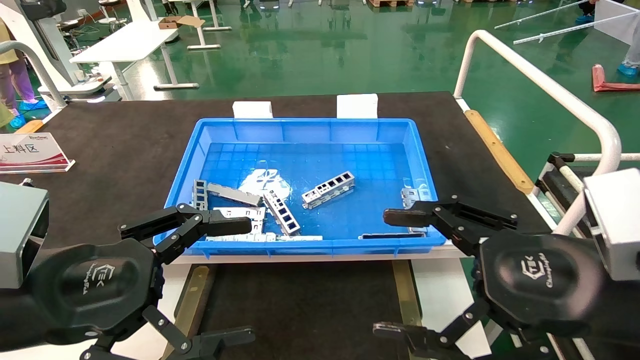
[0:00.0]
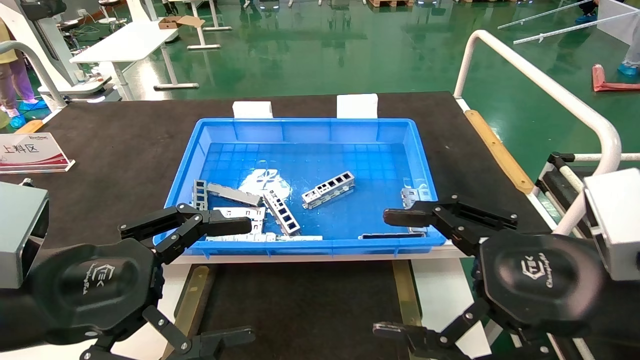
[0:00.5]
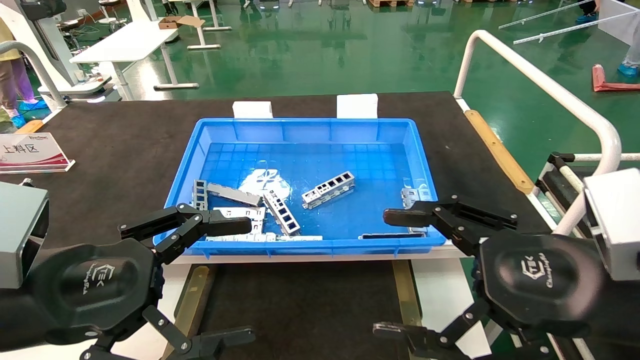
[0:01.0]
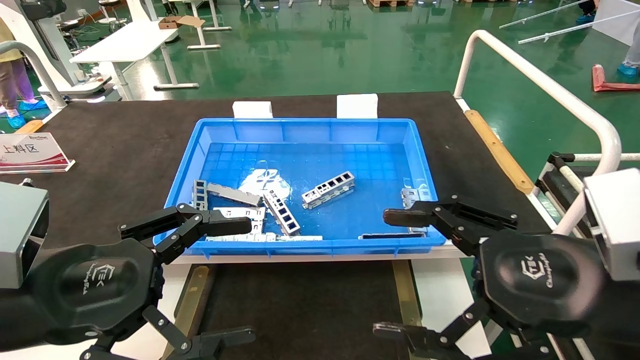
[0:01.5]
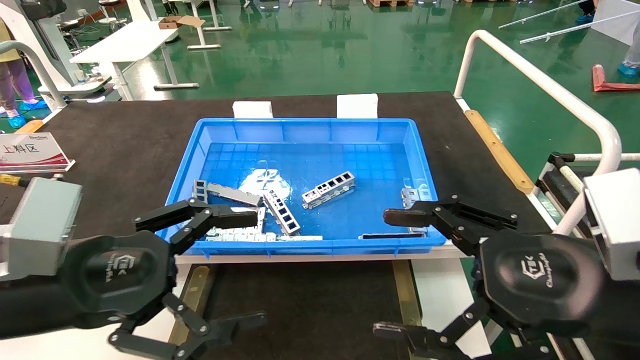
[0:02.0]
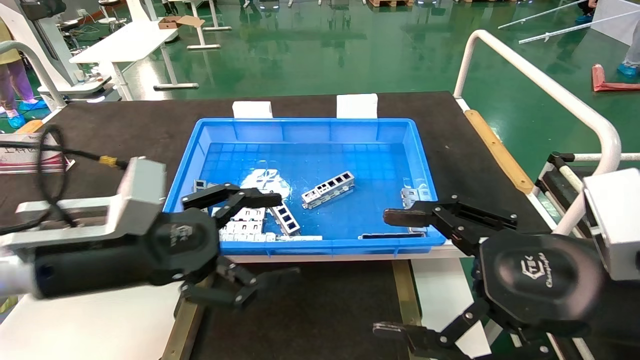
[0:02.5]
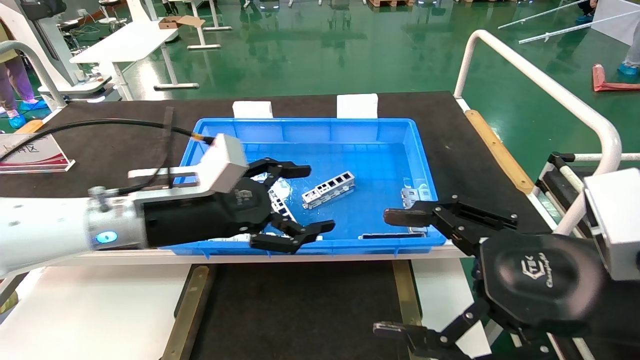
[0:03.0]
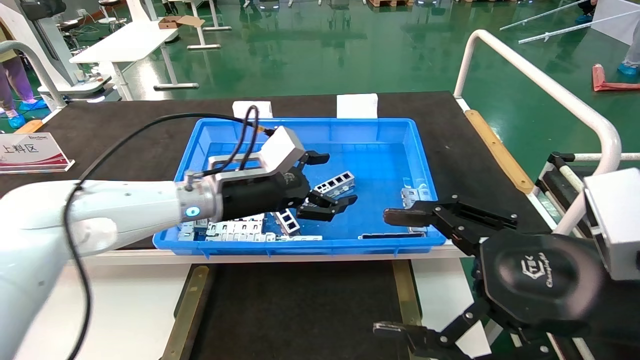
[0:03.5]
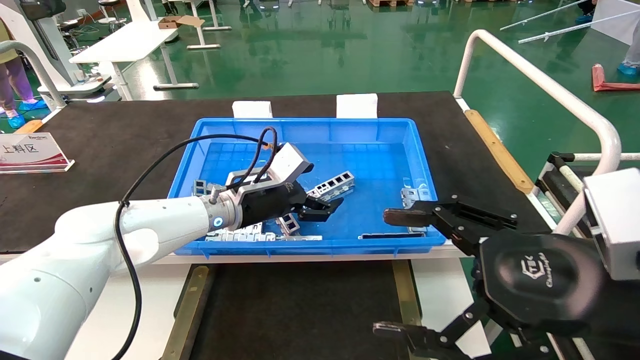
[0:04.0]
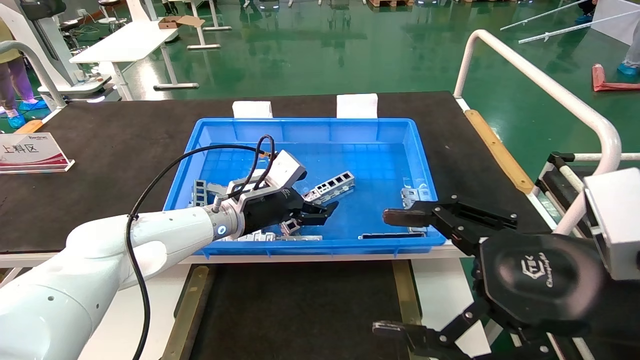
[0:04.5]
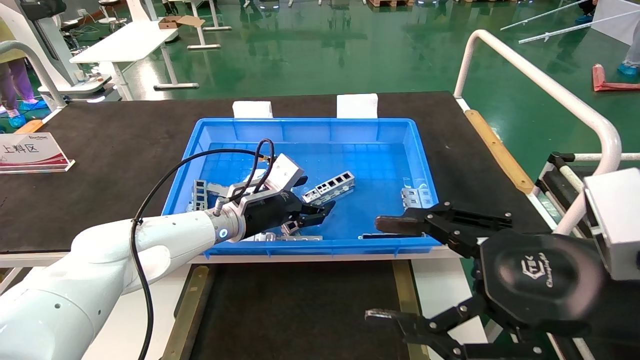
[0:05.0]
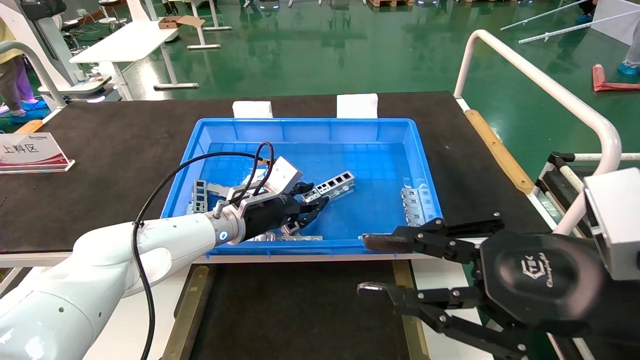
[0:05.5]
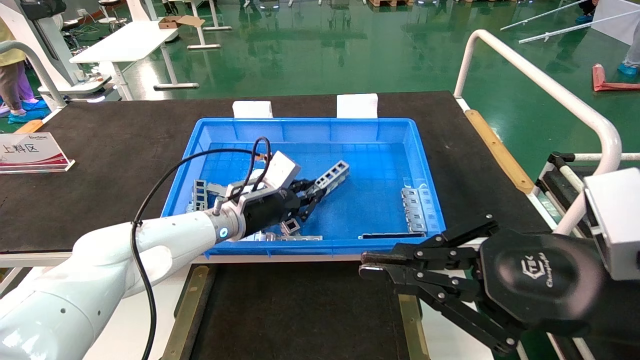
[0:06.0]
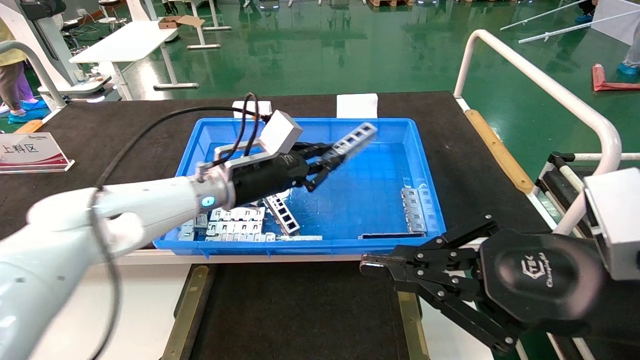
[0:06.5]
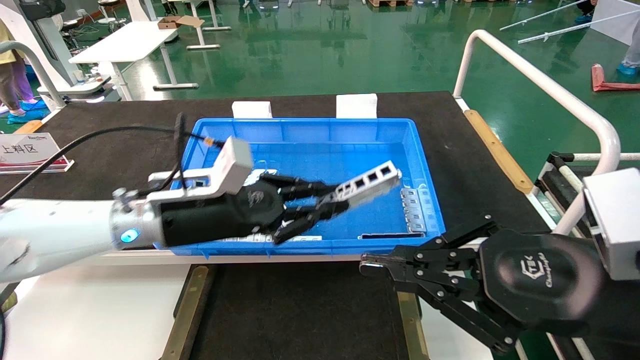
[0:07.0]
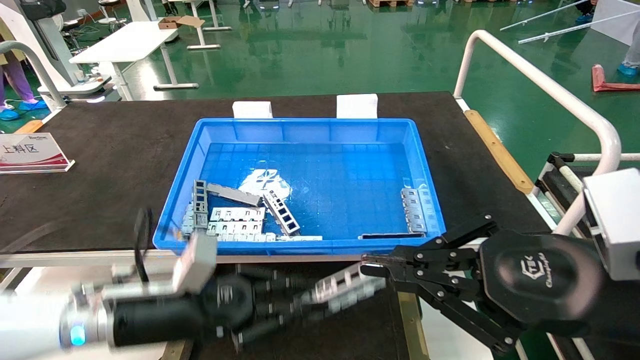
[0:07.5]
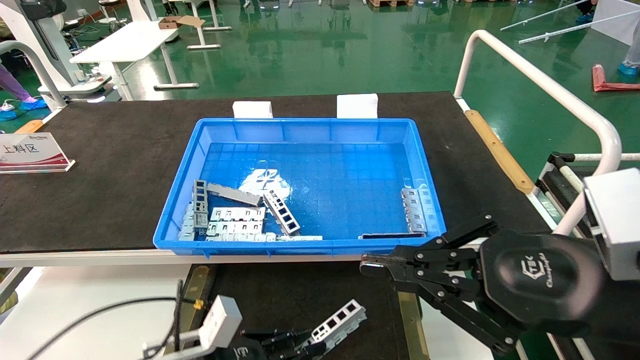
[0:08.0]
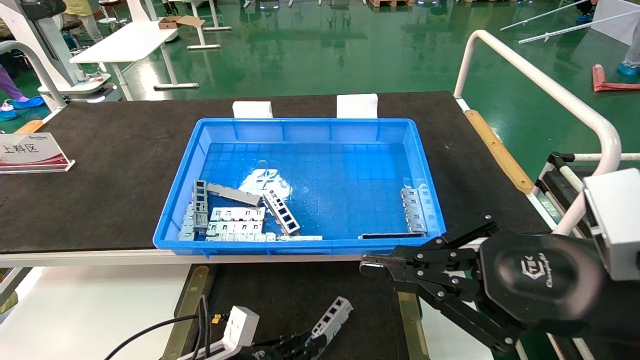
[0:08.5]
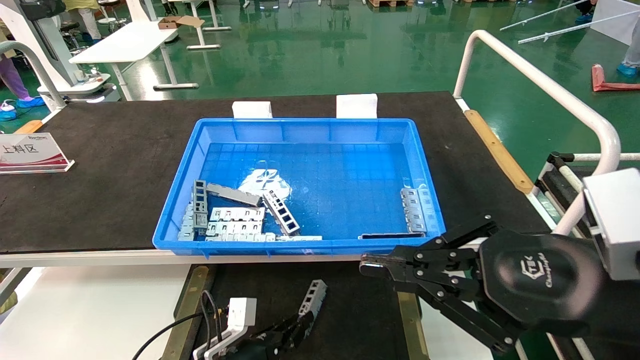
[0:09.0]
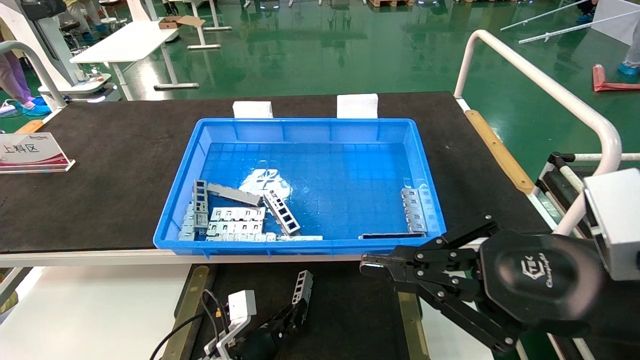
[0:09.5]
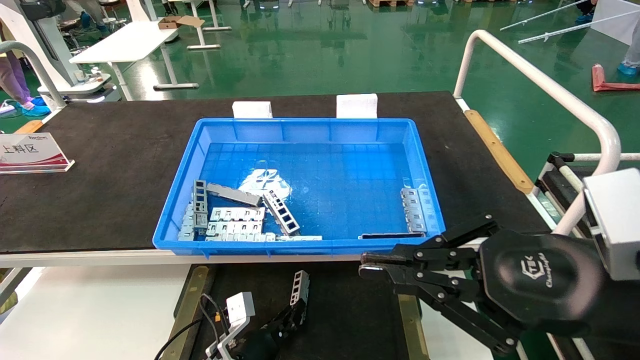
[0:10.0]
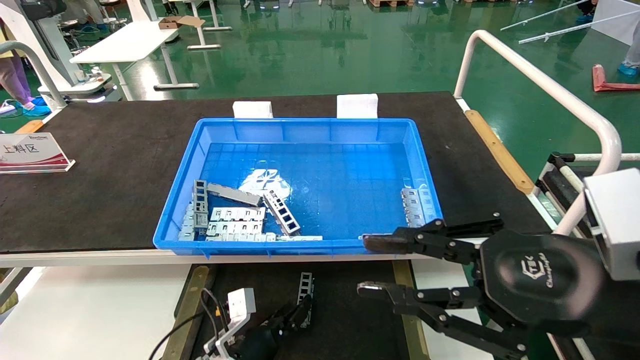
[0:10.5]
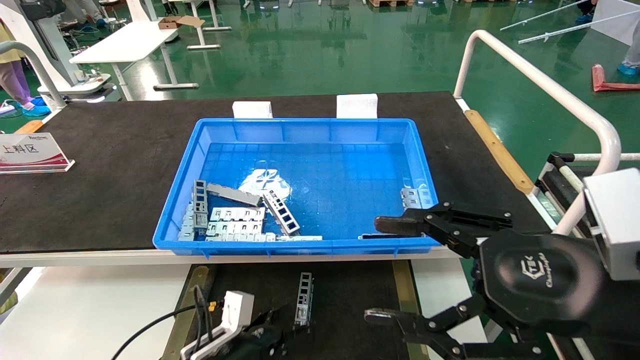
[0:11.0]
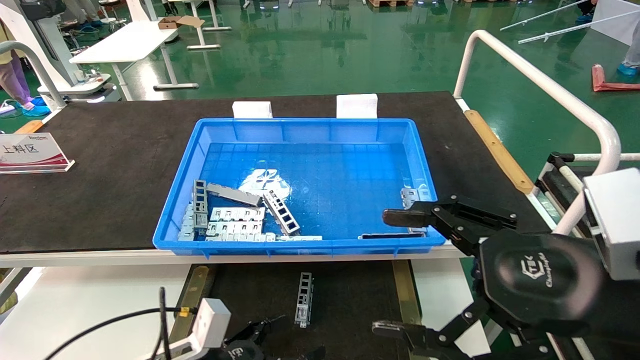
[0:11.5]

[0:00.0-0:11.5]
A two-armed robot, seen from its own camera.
Task of the whole recording: Grasp the part with one hand and place it on the black container.
Step, 0:02.5 to 0:06.5: Pick up the front USB bracket from the feeding area.
Step, 0:07.0 to 0:10.5: Place the front USB bracket into the box.
0:00.0 to 0:02.0: The grippers move only a little.
0:02.0 to 0:04.0: The left gripper heads forward and to the right, covering approximately 30 cm.
0:04.0 to 0:06.0: The right gripper closes its fingers; the left gripper closes up.
0:06.0 to 0:07.5: The left gripper shifts approximately 20 cm backward and to the left.
0:07.5 to 0:09.5: The left gripper goes roughly 20 cm downward.
0:09.5 to 0:11.5: The right gripper opens its fingers, while the left gripper heads backward, upward and to the left, covering roughly 15 cm, and opens.
